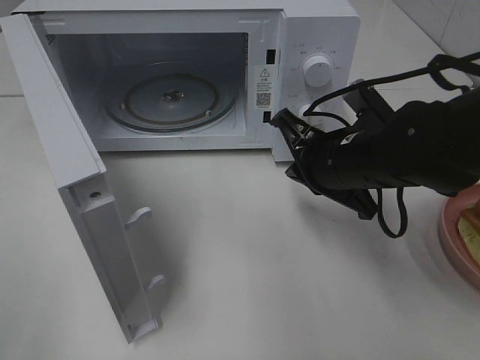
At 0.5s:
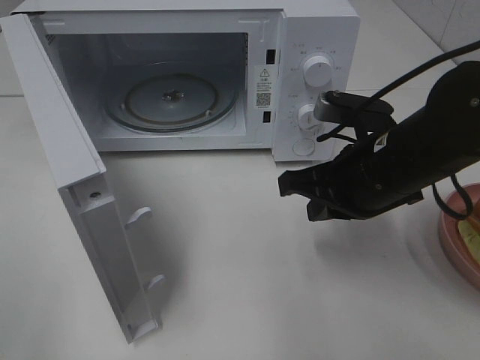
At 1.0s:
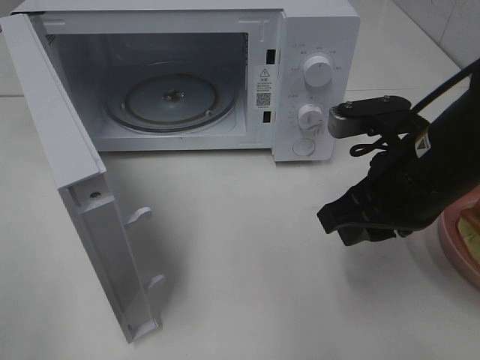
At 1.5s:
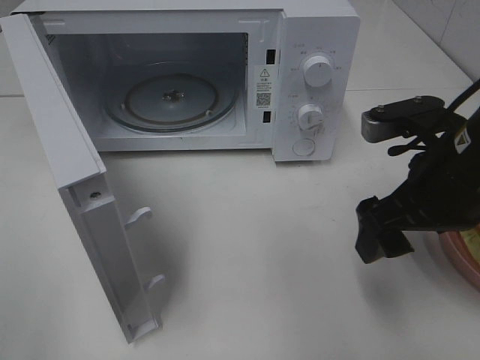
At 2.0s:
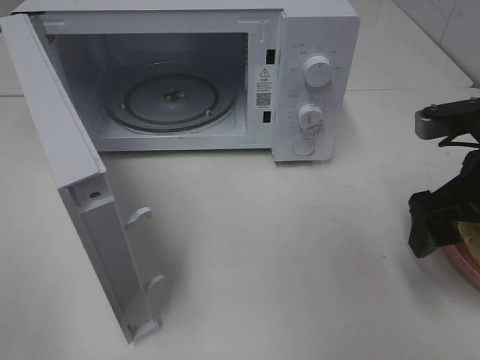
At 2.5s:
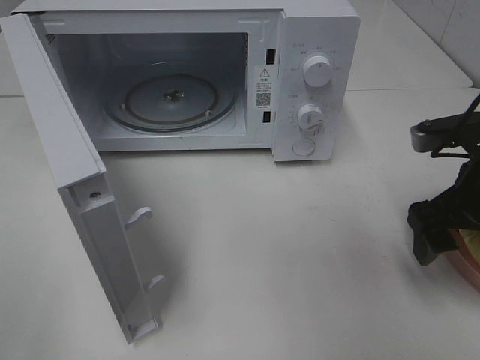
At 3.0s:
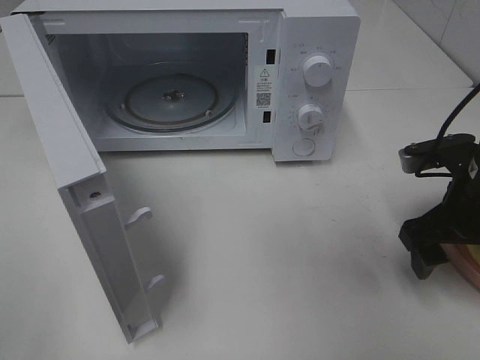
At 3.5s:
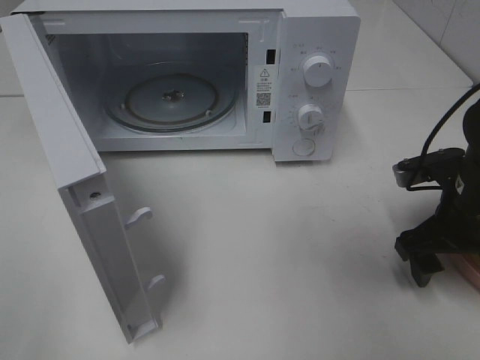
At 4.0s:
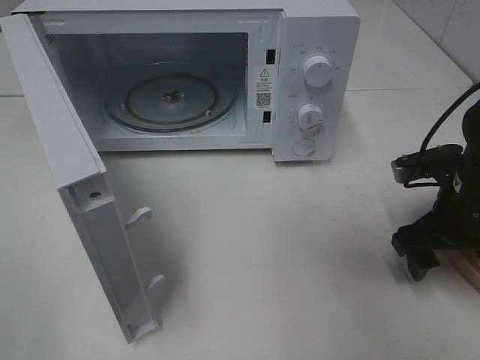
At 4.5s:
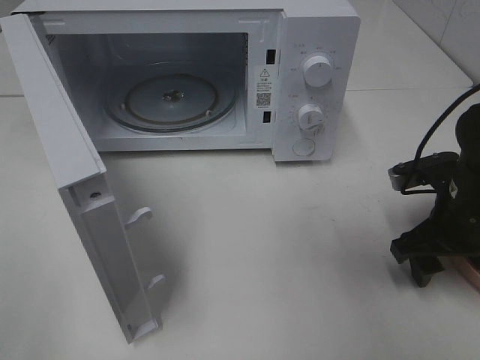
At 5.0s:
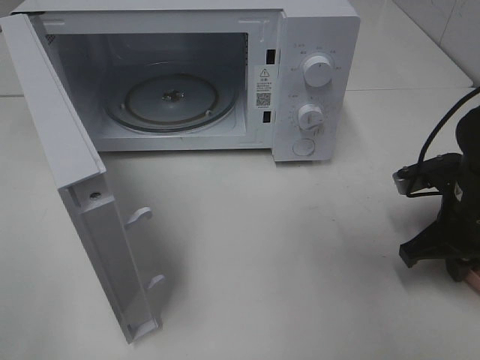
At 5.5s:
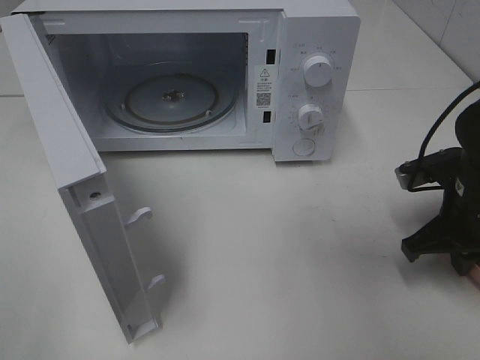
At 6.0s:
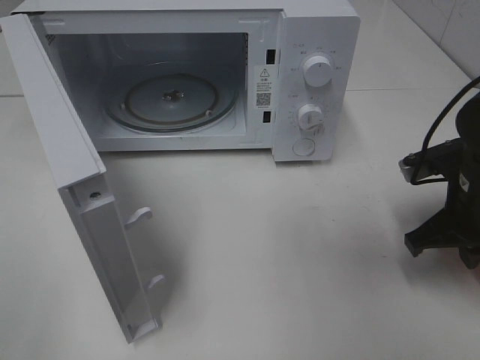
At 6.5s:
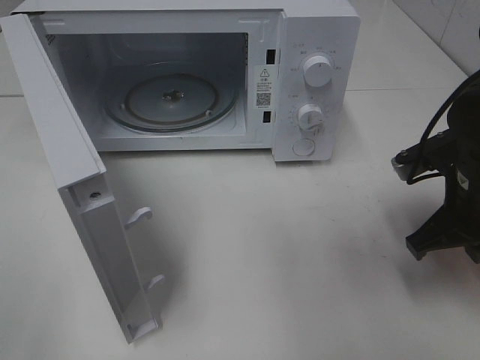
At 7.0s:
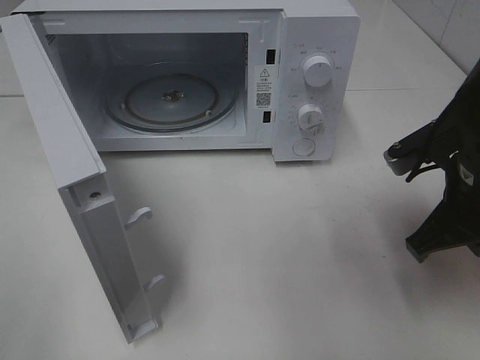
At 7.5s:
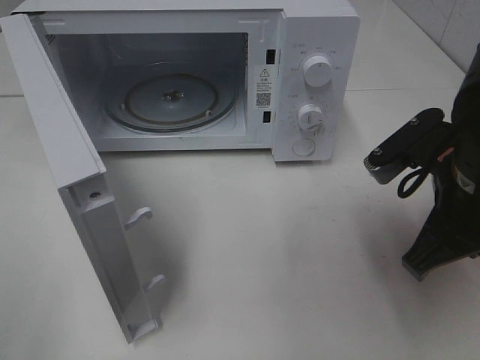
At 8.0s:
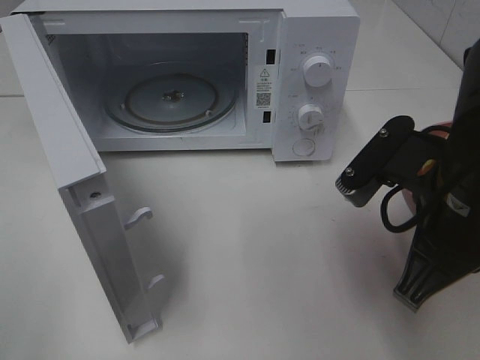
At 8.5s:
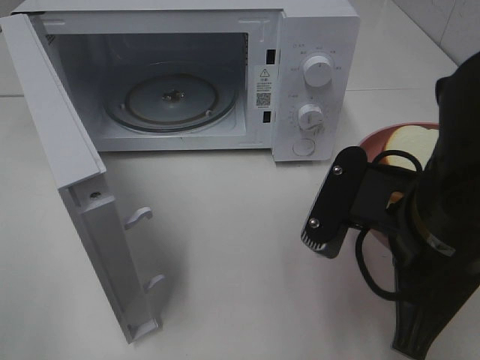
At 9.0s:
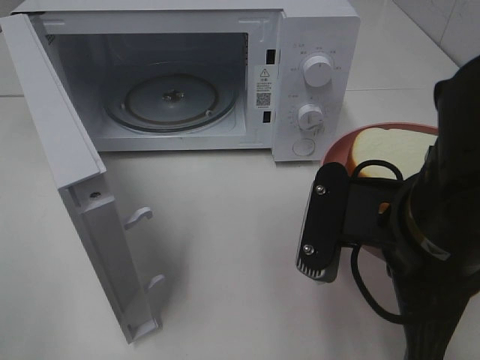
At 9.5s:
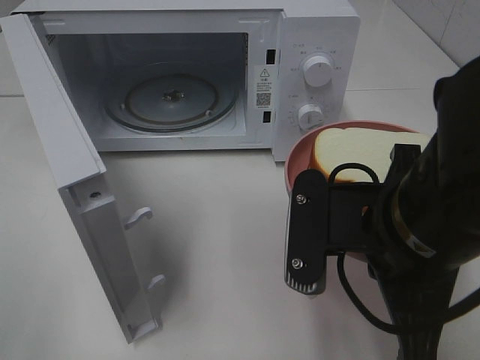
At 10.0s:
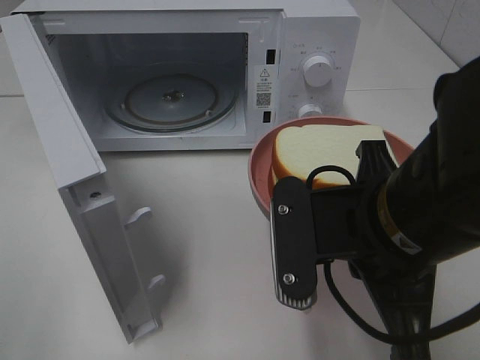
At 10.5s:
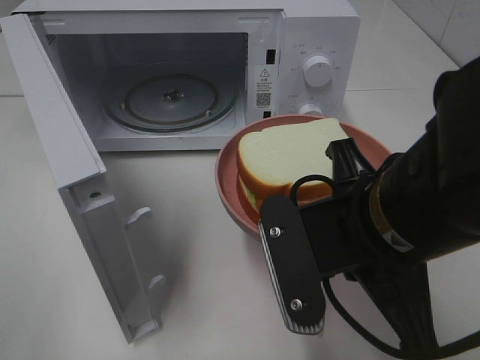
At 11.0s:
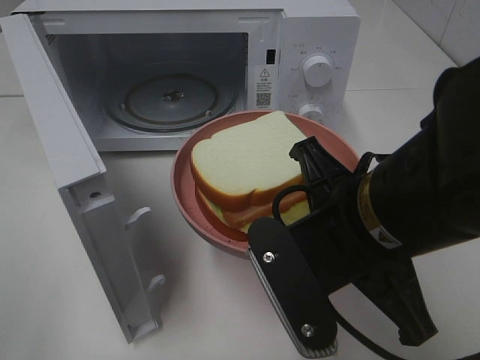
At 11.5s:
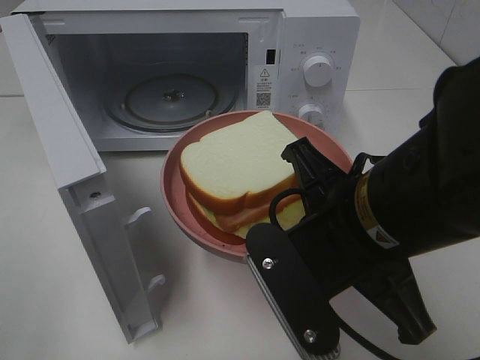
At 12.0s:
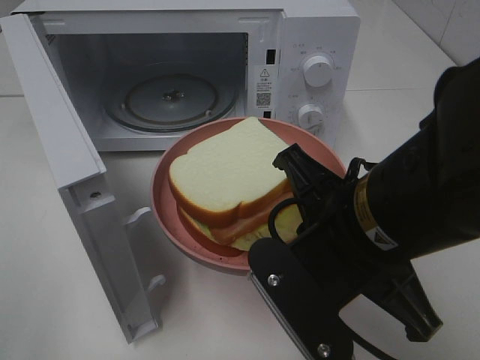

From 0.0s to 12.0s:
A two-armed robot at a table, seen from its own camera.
Task of the whole recording: Heat Sandwich.
Step, from 0.0s to 5.5s: Right hand: grab the plate with the sandwich.
From 0.0s to 2.0s: The right gripper shifts roughly 15 cm to the right and backward, and opens up.
From 2.0s to 4.0s: The right gripper heads downward, covering some 10 cm.
From 4.0s to 6.0s: The right gripper closes up.
From 6.0s to 8.0s: The right gripper goes roughly 15 cm to the left, backward and upward.
From 8.0s to 10.0s: The right gripper goes some 5 cm to the left.

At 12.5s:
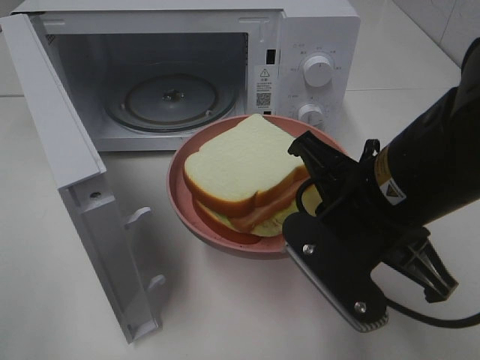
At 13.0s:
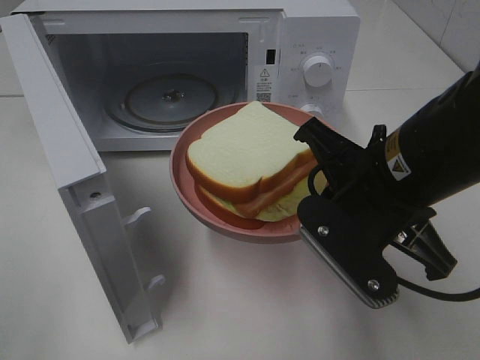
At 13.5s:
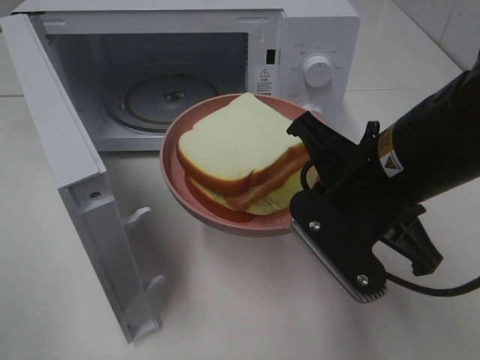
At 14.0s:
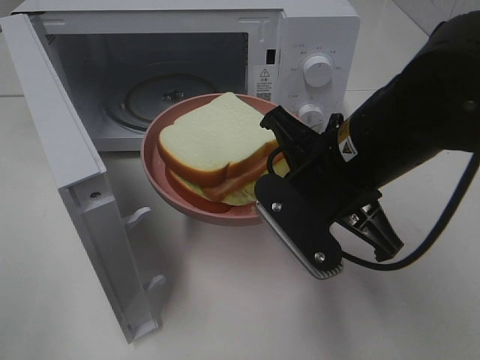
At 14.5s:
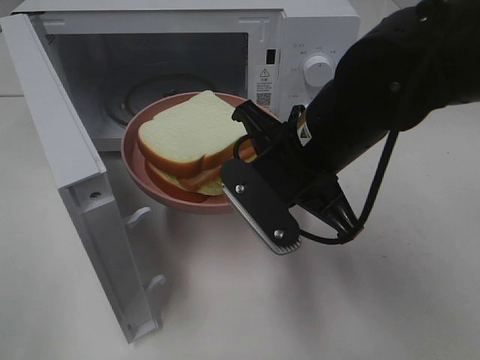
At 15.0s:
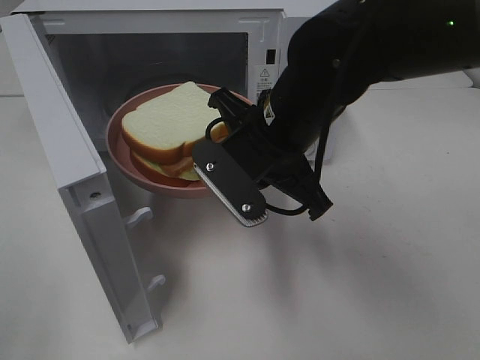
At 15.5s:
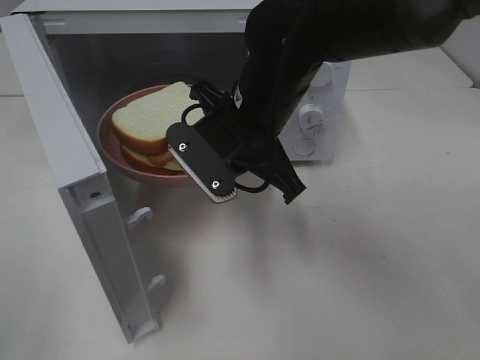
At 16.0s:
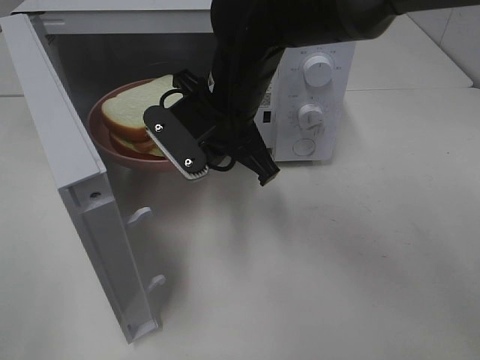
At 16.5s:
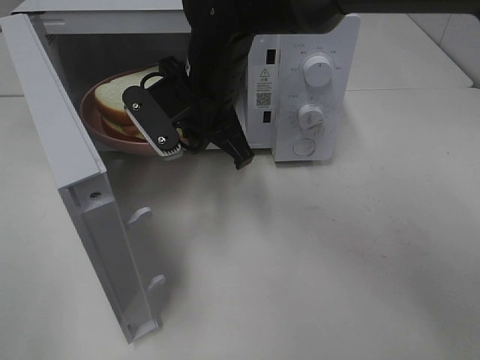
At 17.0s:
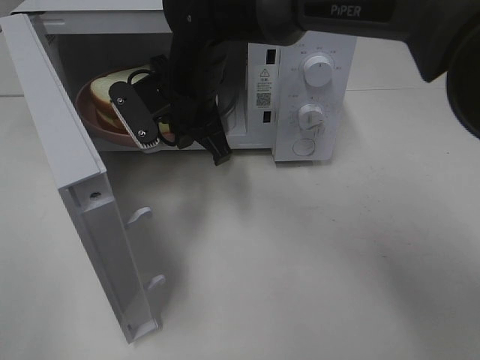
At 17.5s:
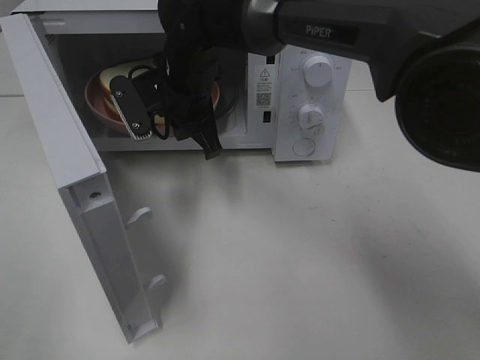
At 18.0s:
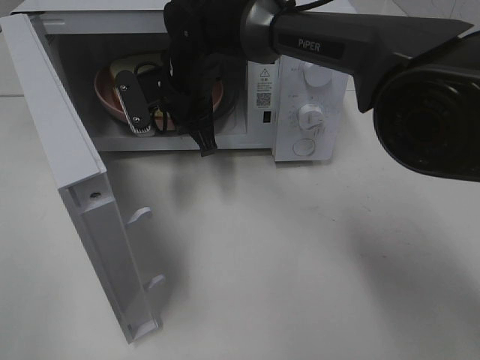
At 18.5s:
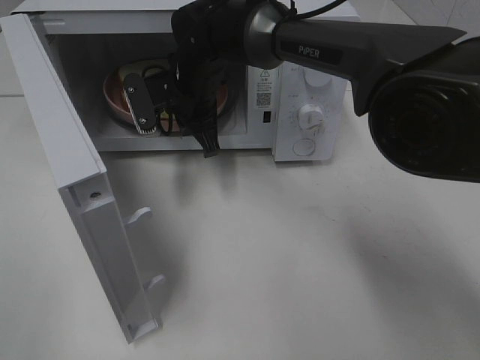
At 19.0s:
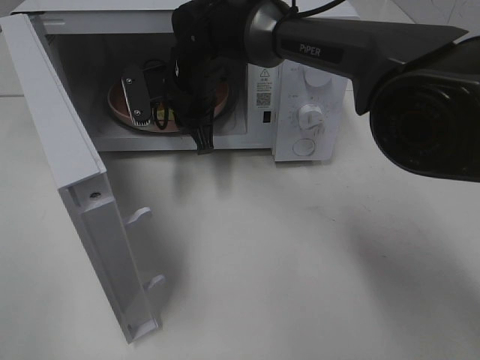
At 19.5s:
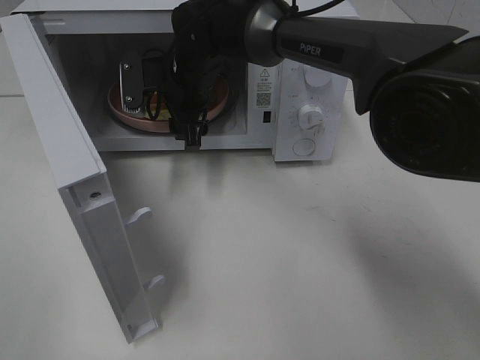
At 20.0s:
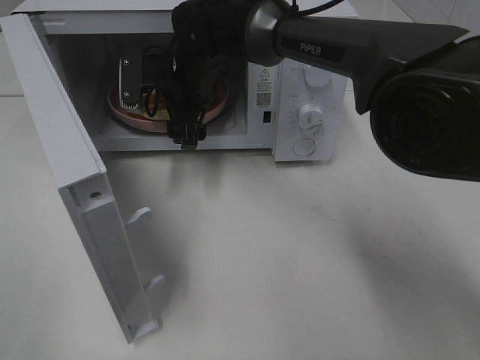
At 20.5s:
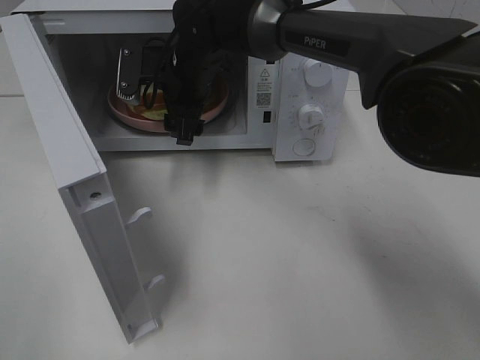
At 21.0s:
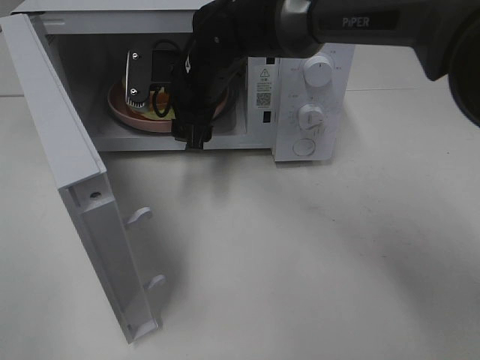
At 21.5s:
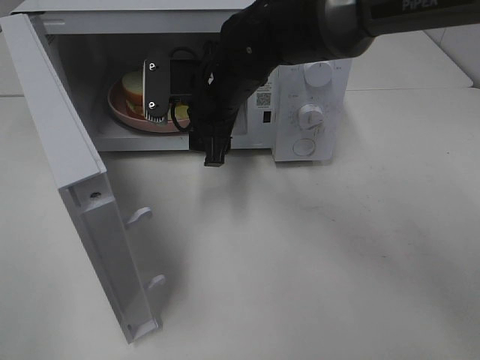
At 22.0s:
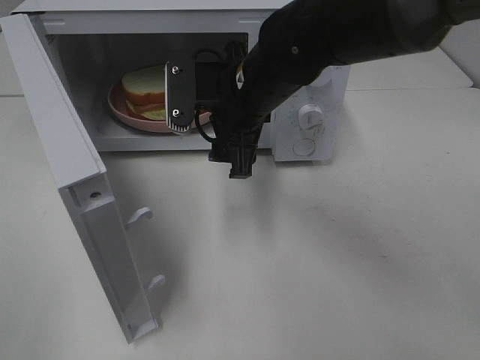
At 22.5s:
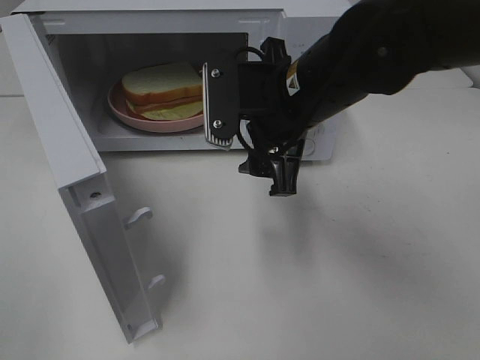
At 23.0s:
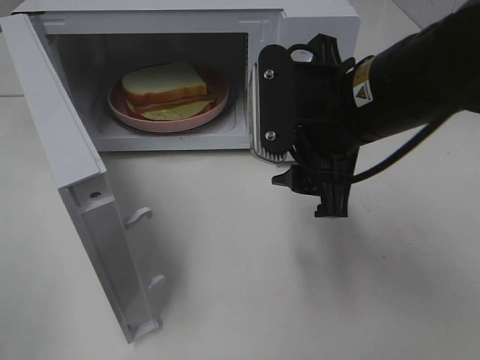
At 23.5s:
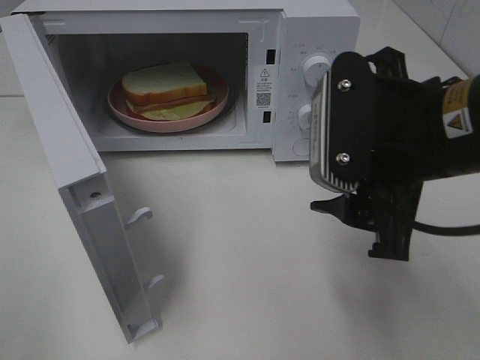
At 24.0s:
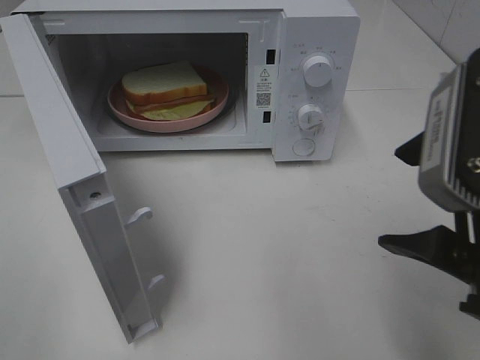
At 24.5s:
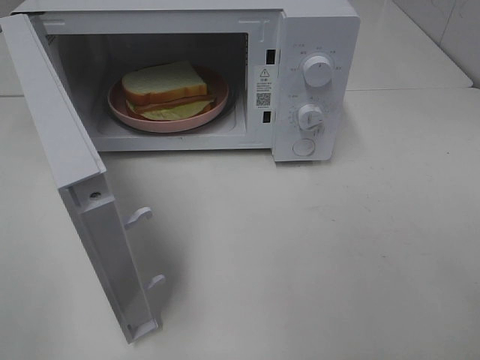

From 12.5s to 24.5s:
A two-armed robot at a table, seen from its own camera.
Task of the whole recording: Heat Sandwich.
Step, from 12.5s to 21.0s: Right hand: place the plate in the microwave.
From 12.5s to 14.5s: The right gripper travels forward by approximately 5 cm.
From 14.5s to 16.5s: The right gripper moves forward and to the left, some 15 cm.
From 16.5s to 18.5s: The right gripper travels forward by about 10 cm.
From 18.5s to 20.5s: The right gripper opens up.
From 20.5s to 22.5s: The right gripper travels backward and to the right by some 20 cm.
From 22.5s to 24.5s: The right gripper heads backward and to the right, covering roughly 25 cm.

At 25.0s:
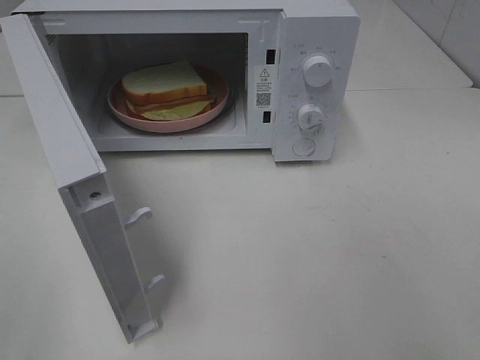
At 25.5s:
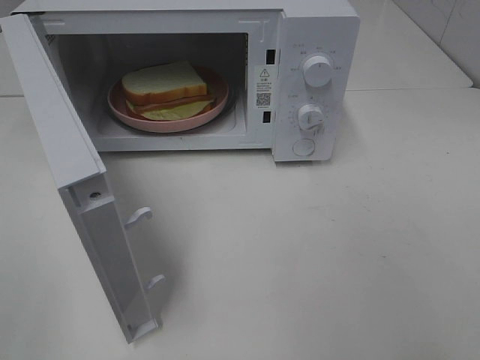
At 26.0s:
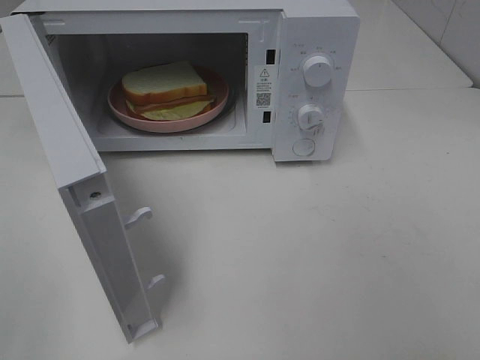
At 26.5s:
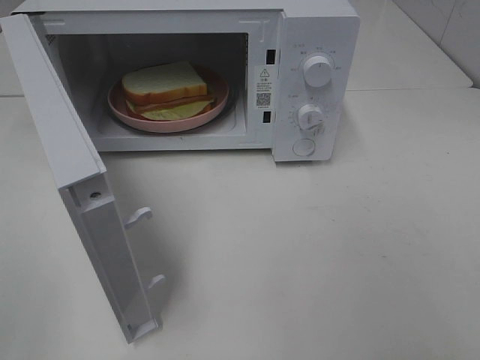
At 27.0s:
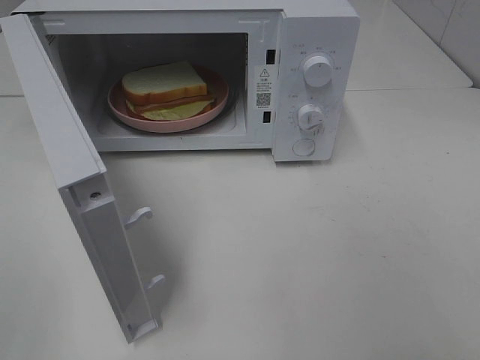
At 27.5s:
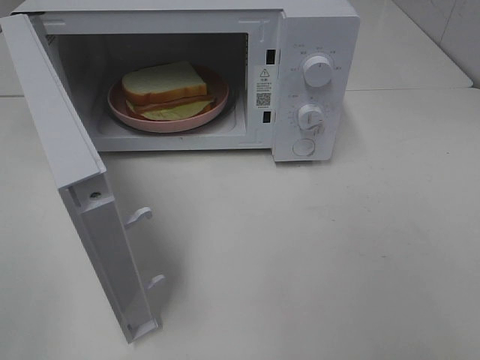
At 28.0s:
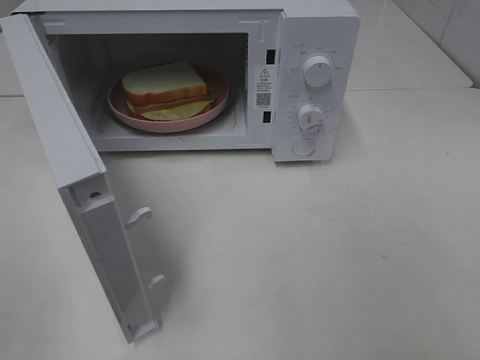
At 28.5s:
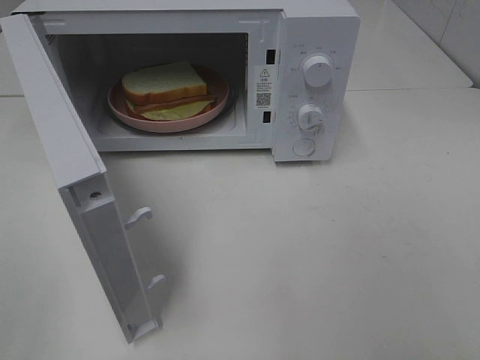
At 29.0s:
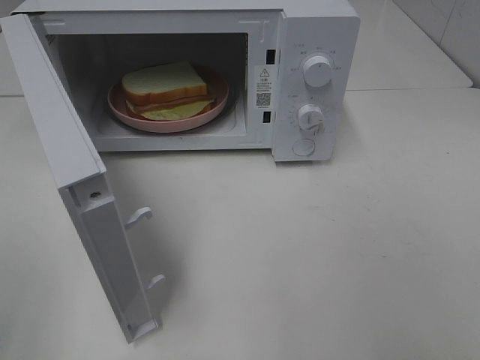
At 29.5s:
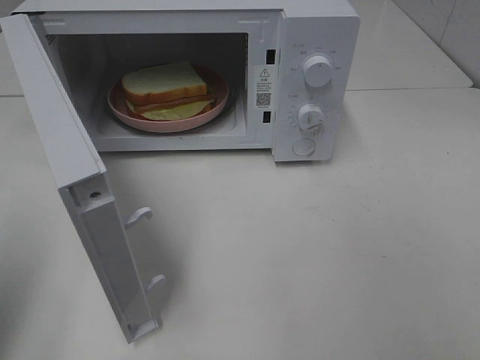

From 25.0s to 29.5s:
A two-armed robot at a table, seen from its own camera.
Task of the whole recording: Heat Sandwich.
From 27.0s to 29.5s: The left gripper shifts roughly 10 cm forward, and closes.
